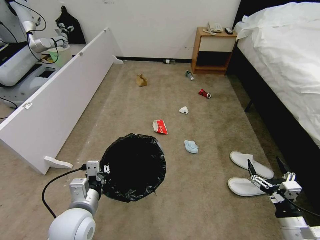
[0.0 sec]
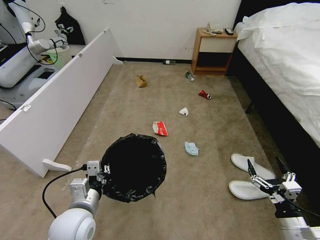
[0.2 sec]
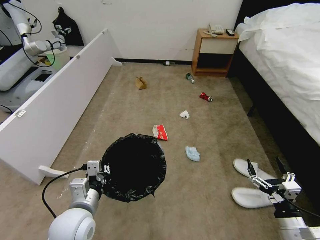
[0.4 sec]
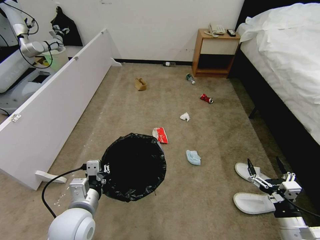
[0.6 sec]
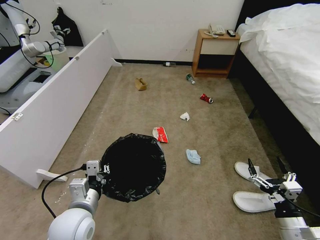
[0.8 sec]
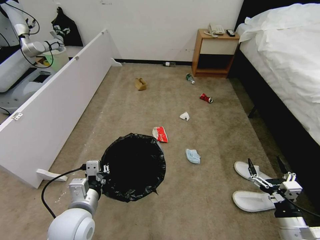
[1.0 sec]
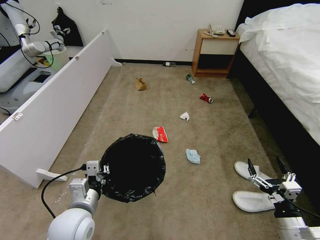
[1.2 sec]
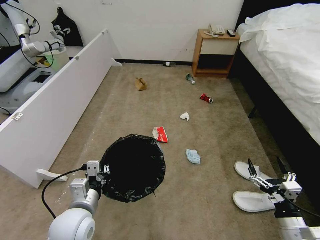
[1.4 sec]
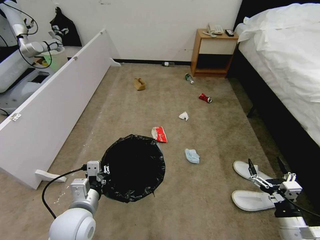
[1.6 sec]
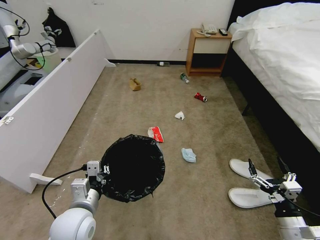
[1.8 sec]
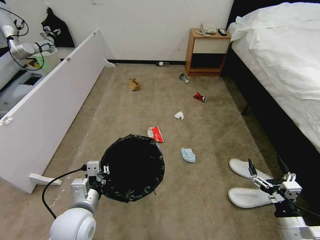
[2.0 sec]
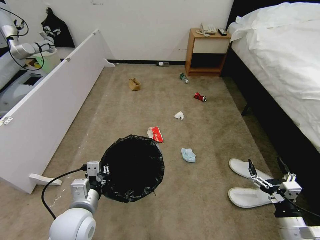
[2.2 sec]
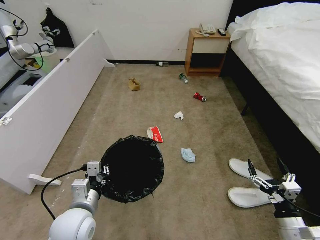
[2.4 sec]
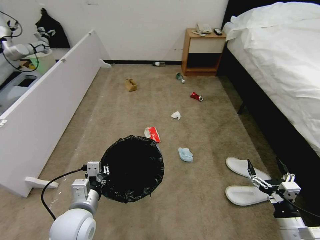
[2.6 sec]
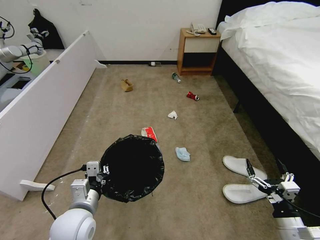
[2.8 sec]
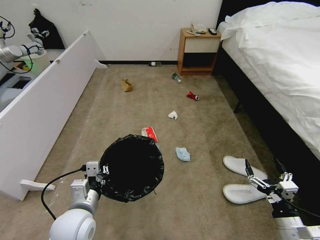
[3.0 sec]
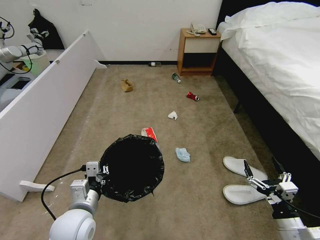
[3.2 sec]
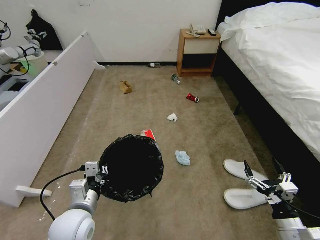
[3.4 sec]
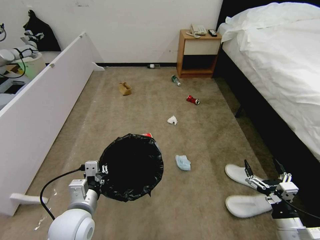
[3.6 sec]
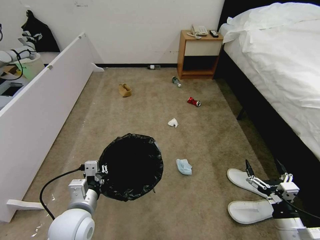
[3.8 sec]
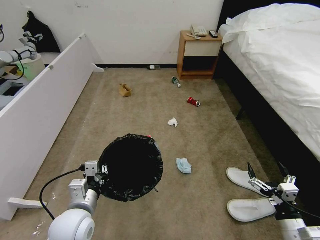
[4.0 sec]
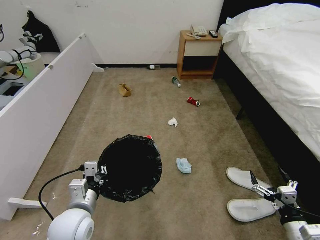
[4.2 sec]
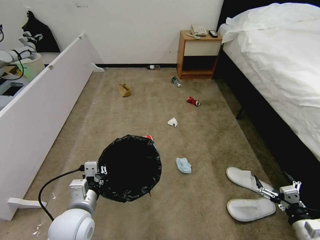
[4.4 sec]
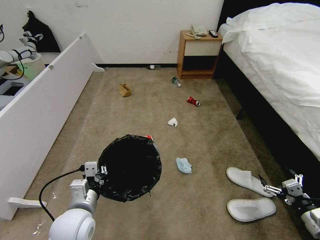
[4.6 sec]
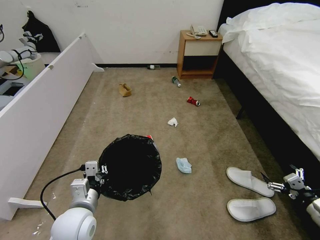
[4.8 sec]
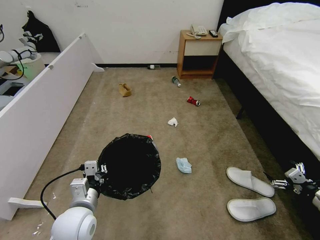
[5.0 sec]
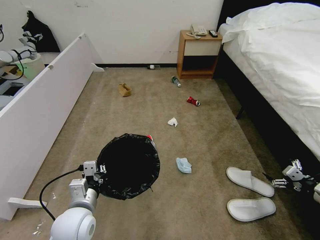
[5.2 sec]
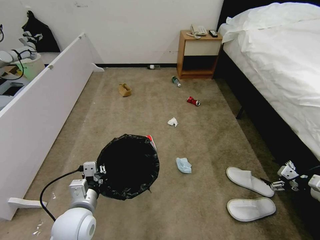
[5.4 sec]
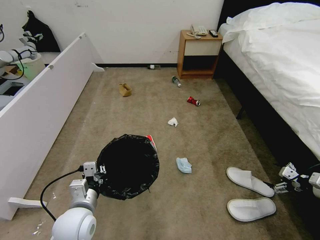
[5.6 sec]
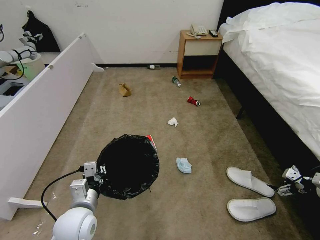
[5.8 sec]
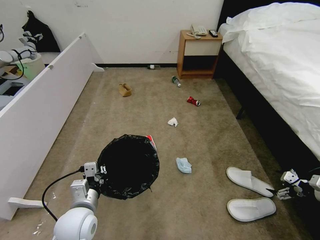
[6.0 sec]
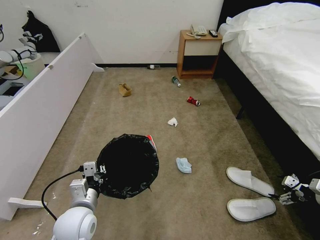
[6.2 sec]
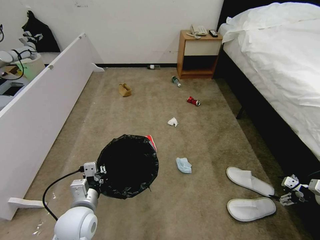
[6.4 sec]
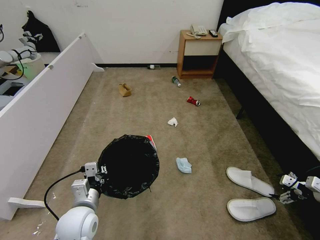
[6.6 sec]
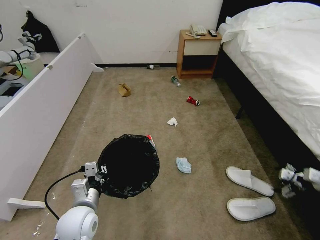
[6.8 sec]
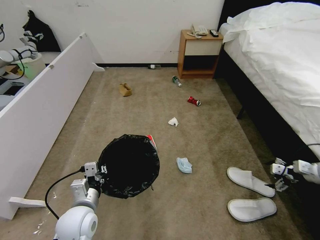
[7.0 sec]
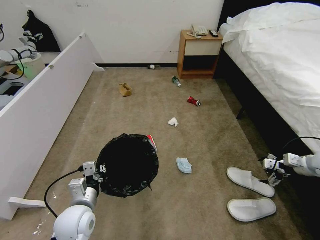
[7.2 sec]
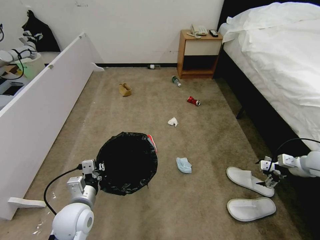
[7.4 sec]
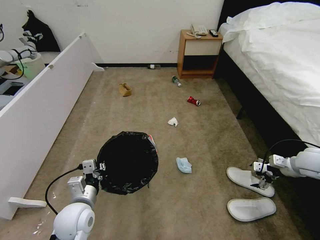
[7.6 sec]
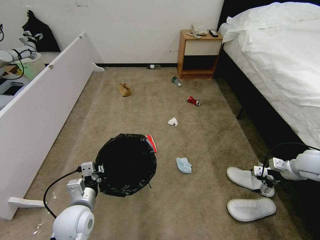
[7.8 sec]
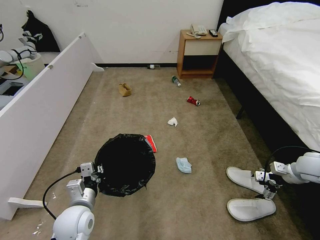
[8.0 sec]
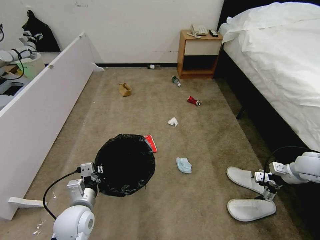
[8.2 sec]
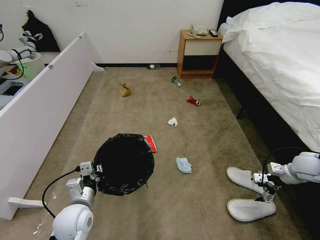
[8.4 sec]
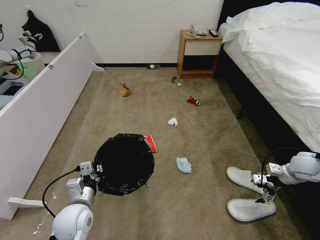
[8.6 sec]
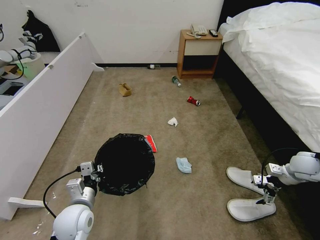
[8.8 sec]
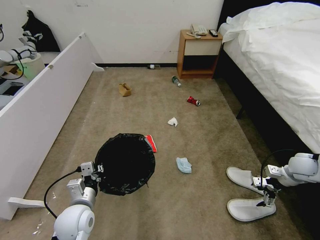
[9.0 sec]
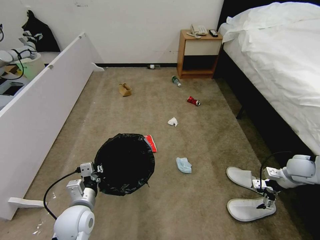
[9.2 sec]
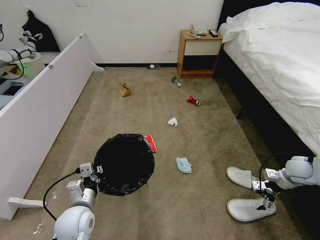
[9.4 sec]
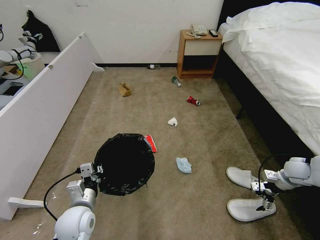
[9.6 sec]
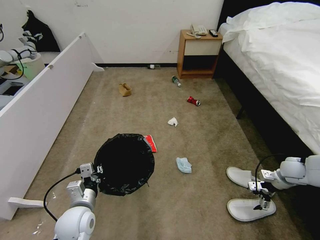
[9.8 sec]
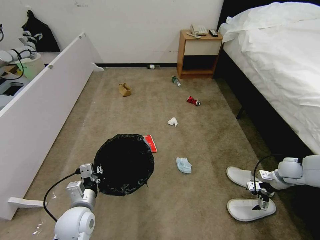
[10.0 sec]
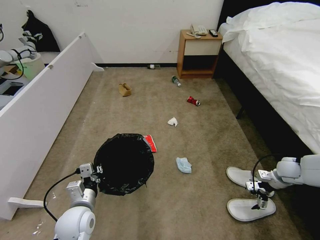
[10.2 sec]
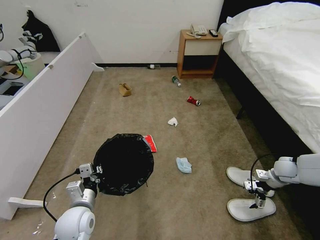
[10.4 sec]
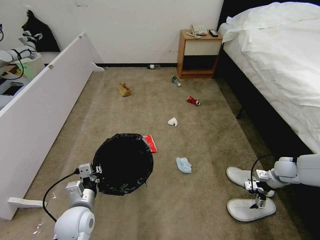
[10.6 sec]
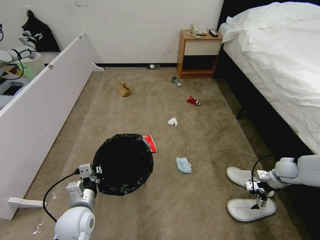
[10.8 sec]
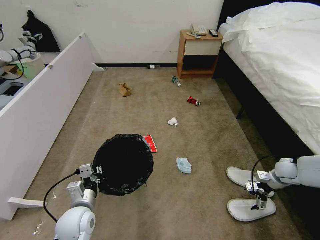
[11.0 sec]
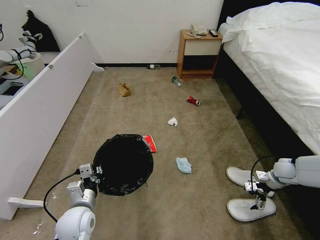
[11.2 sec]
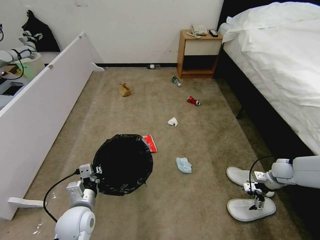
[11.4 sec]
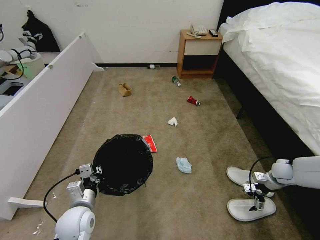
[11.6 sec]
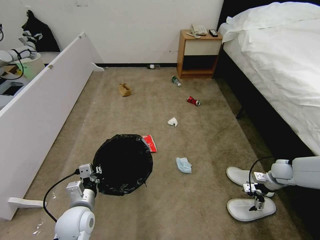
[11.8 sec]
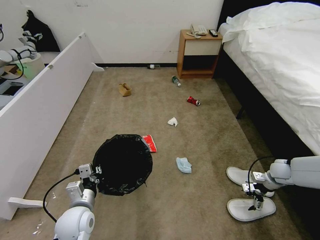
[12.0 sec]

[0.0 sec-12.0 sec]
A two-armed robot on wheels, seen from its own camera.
Task of the whole recording: Pick up the trash bin and place the garbage on the floor into it.
0.0 sec to 1.6 sec: Neither gripper changes place.
3.0 sec to 4.4 sec: The right gripper shifts by some 5 cm.
4.4 sec to 6.0 sec: The right gripper heads to the right, forward and upward, covering roughly 20 cm.
6.0 sec to 7.6 sec: The right gripper is displaced forward and to the left by about 15 cm.
7.6 sec to 9.0 sec: The grippers move only a little.
9.0 sec to 10.4 sec: The right gripper goes roughly 5 cm downward.
10.4 sec to 12.0 sec: The grippers move only a little.

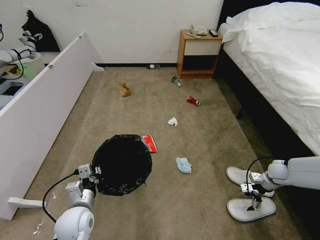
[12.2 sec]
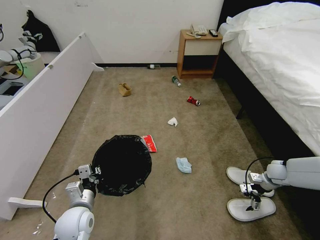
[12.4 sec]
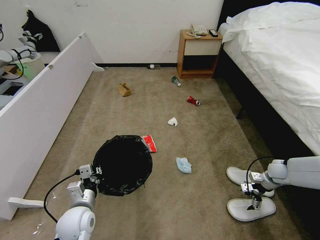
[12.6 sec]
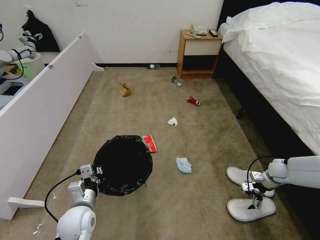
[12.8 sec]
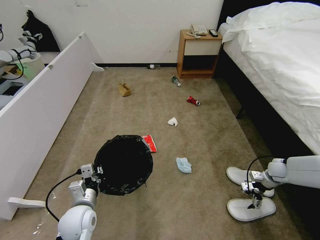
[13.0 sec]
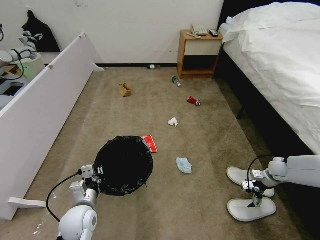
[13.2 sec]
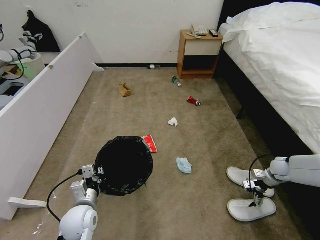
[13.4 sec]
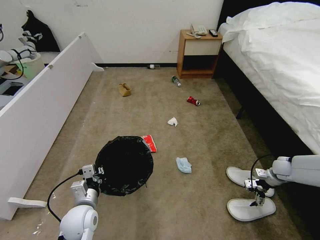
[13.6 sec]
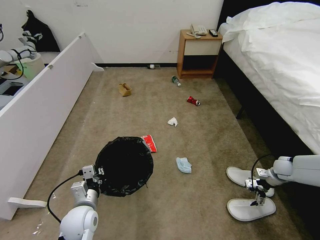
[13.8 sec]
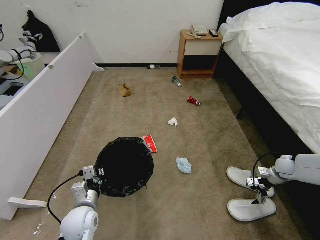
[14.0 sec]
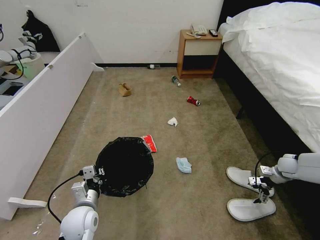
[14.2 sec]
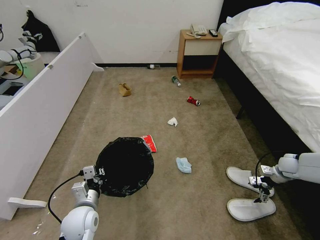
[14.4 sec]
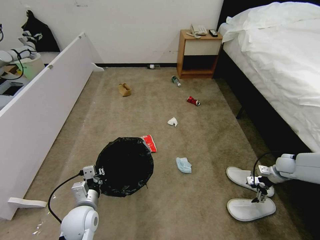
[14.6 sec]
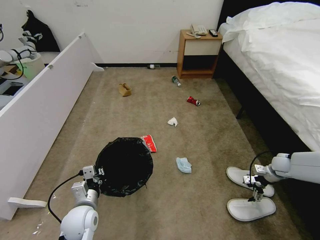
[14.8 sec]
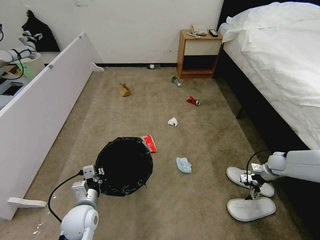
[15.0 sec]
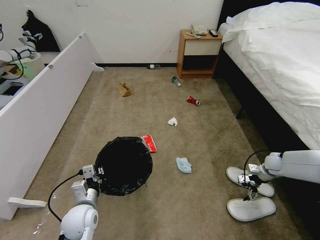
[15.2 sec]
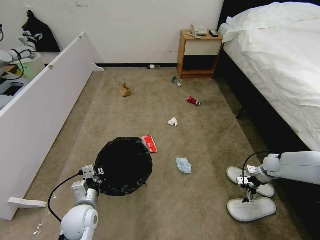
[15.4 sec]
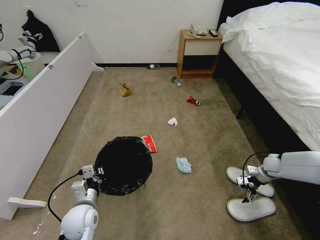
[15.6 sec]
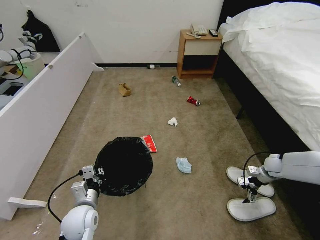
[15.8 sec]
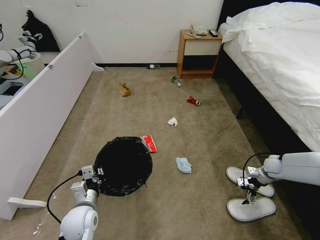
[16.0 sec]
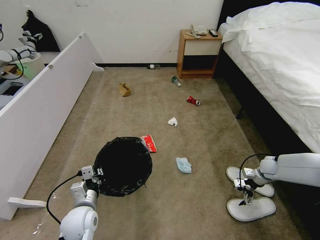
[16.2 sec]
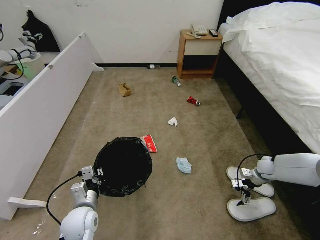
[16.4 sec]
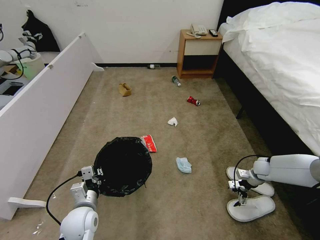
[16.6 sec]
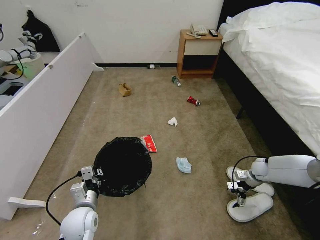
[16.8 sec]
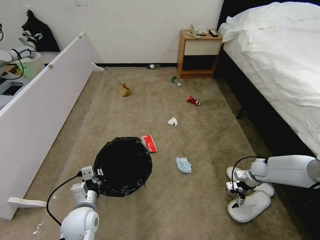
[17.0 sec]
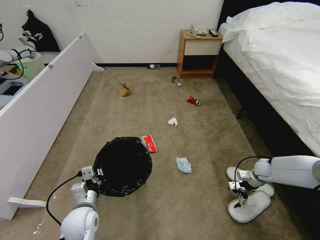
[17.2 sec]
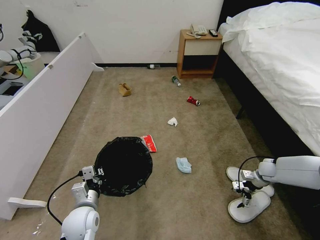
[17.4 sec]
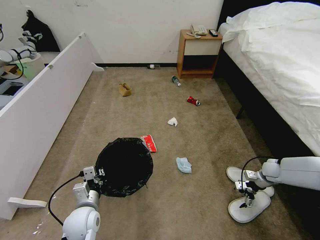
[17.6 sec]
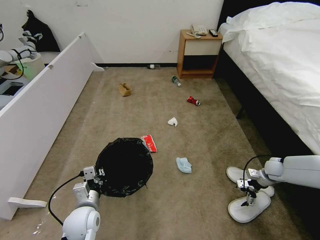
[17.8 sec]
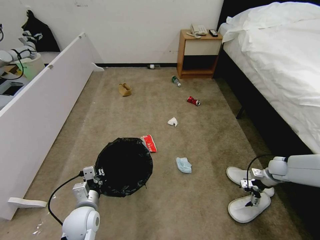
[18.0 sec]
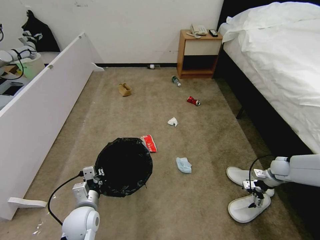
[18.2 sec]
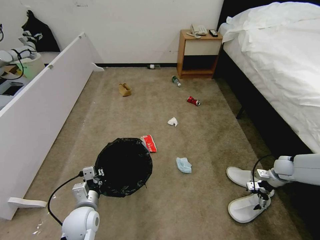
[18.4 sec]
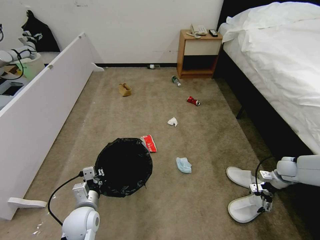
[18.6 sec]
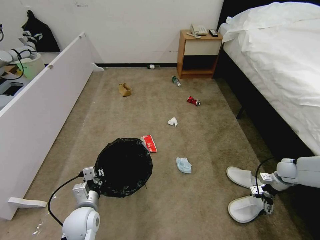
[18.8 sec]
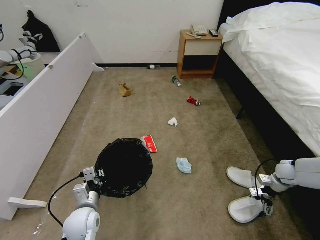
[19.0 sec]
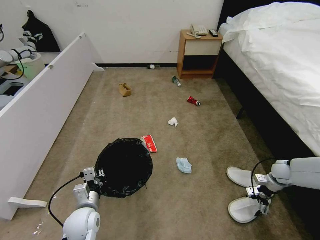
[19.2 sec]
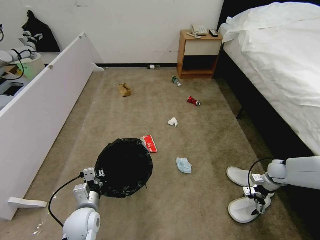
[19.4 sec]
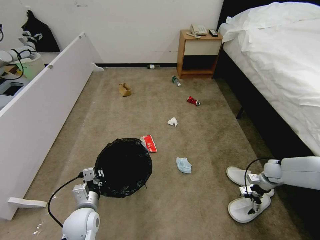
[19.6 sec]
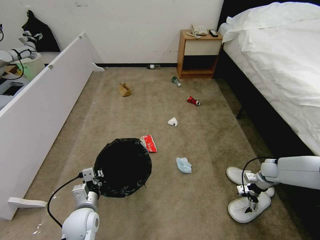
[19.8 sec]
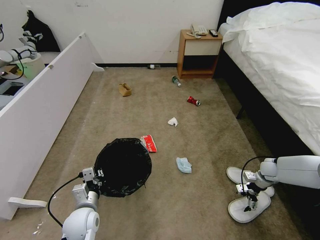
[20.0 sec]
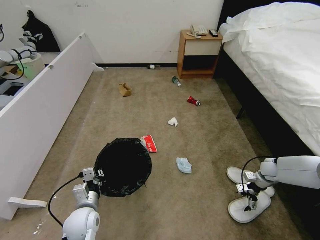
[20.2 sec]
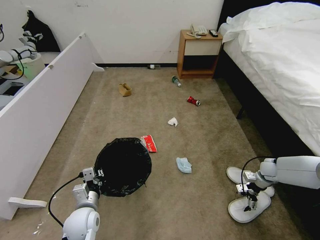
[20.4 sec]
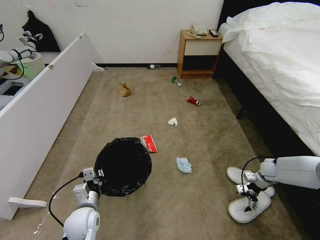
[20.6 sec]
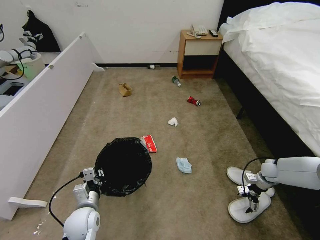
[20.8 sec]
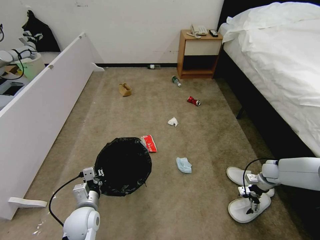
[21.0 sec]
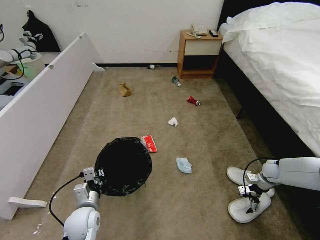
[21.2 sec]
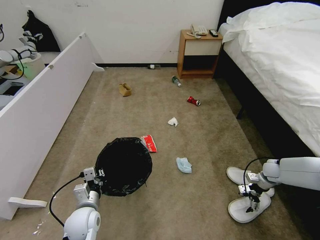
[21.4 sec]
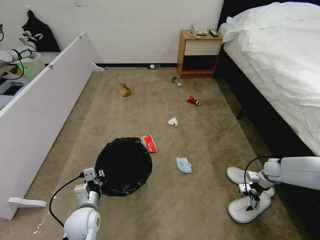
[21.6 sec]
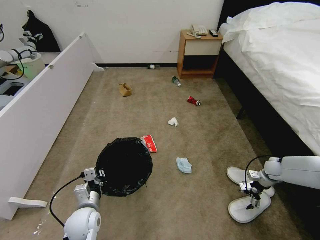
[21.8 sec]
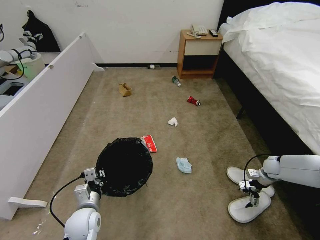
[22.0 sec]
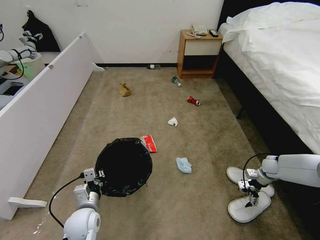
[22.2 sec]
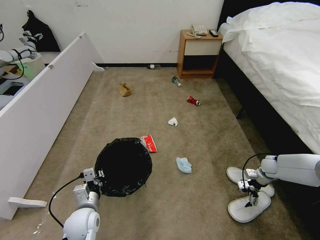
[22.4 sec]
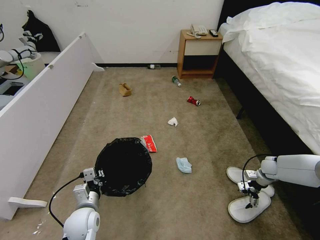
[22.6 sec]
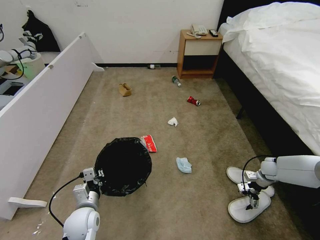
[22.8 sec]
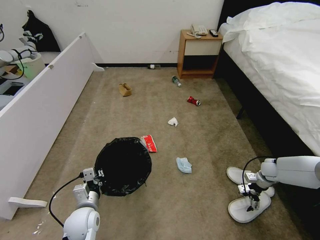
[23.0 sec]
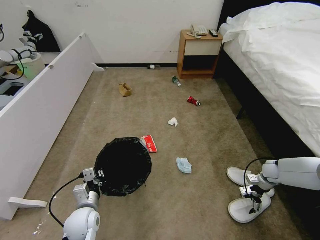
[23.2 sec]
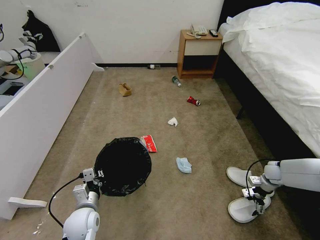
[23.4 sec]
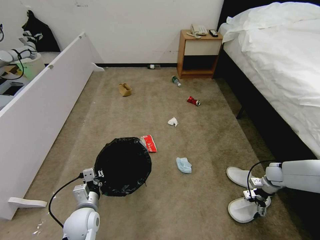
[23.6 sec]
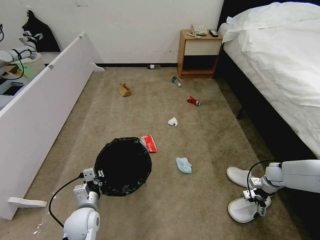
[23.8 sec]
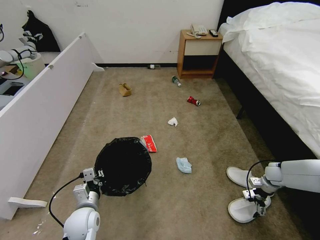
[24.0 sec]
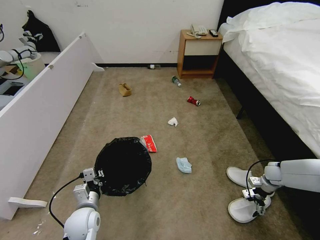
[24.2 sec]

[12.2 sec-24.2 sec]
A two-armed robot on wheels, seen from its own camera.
Task of the whole recording: Pick up the trash bin and place the garbage on the floor into it.
12.2 sec to 15.2 sec: The grippers stay close to where they were, moving slightly.
15.2 sec to 16.6 sec: The right gripper ends up about 5 cm from where it was.
16.6 sec to 18.2 sec: The right gripper is displaced to the right by some 5 cm.
18.2 sec to 19.8 sec: The grippers make only small movements.
19.8 sec to 21.2 sec: Both grippers stay put.
21.2 sec to 24.2 sec: The grippers make only small movements.
